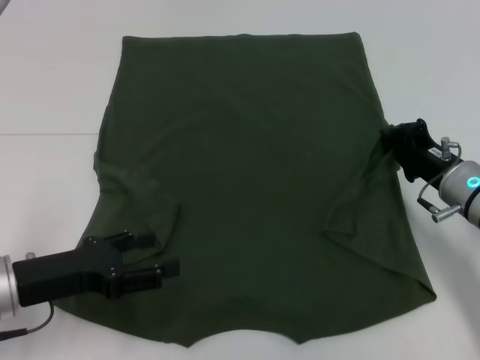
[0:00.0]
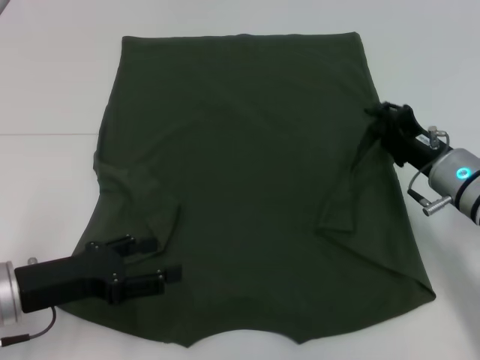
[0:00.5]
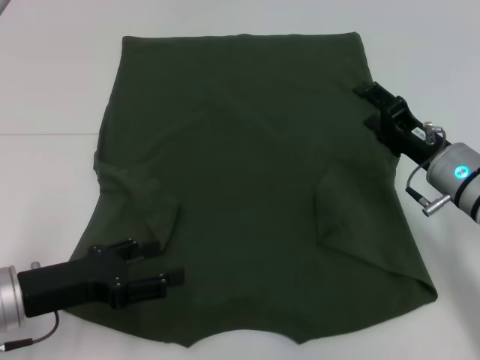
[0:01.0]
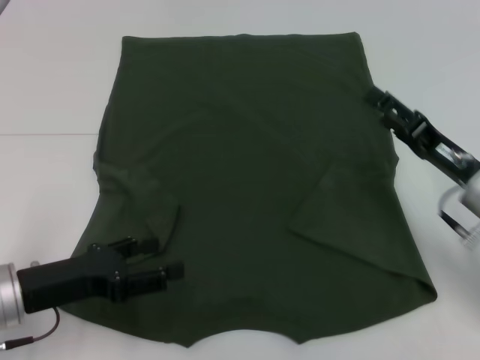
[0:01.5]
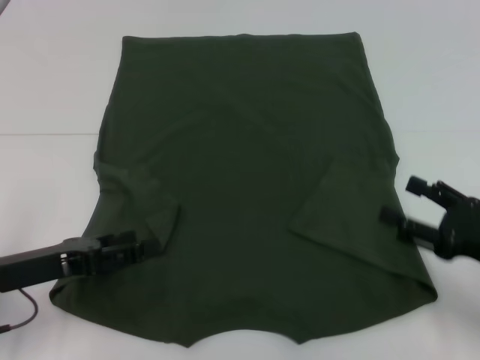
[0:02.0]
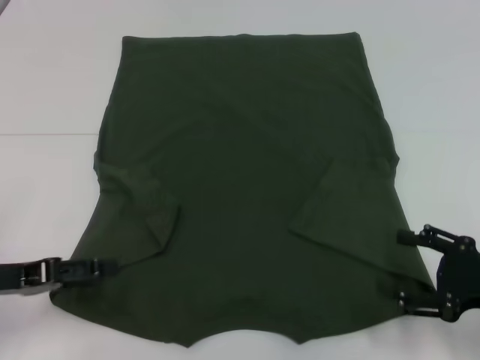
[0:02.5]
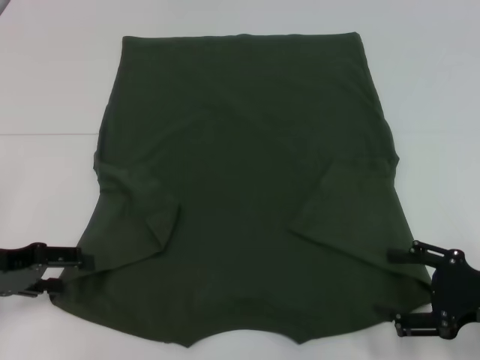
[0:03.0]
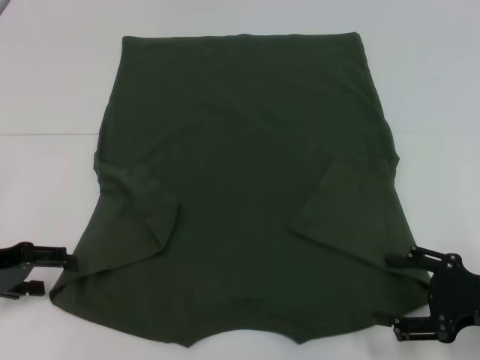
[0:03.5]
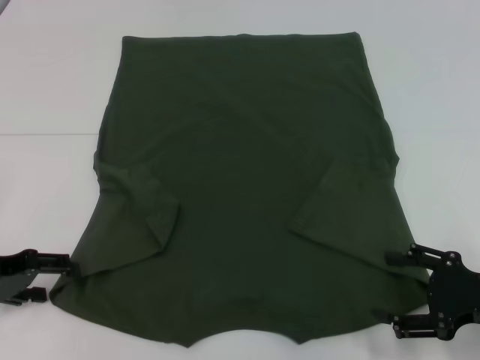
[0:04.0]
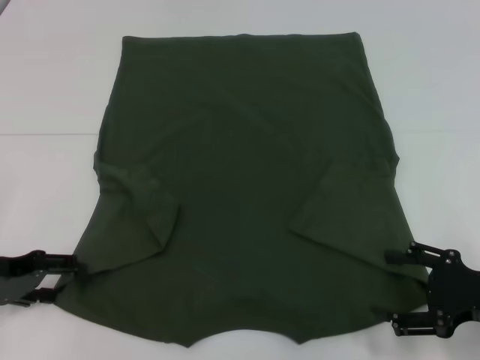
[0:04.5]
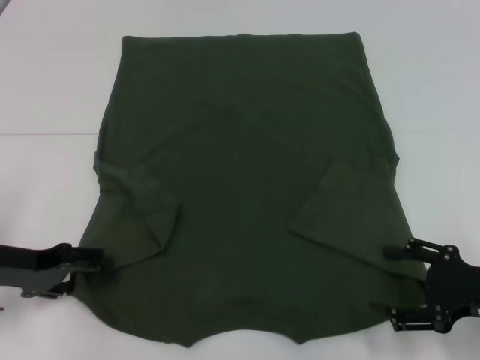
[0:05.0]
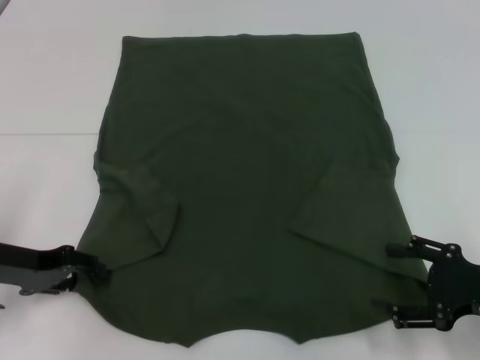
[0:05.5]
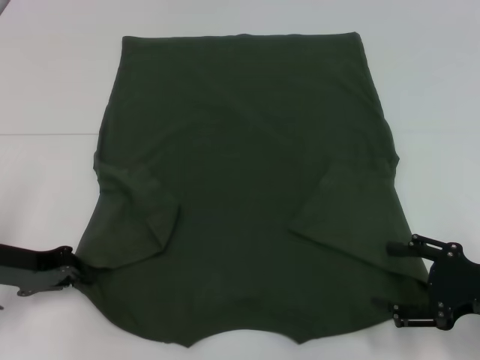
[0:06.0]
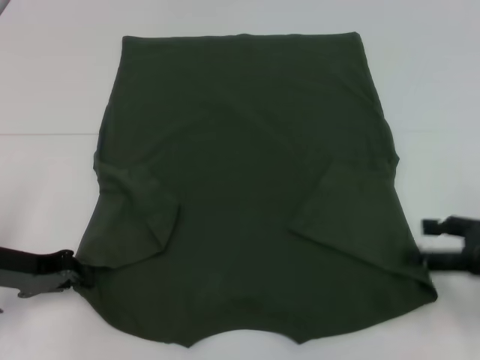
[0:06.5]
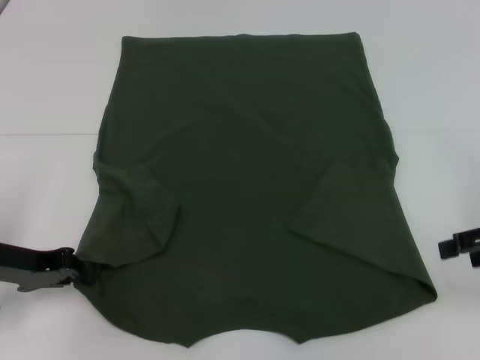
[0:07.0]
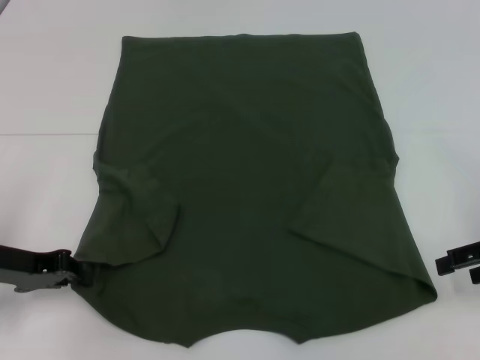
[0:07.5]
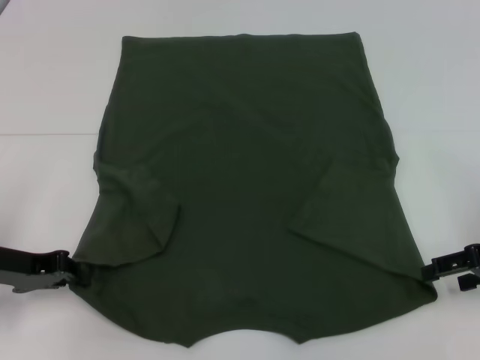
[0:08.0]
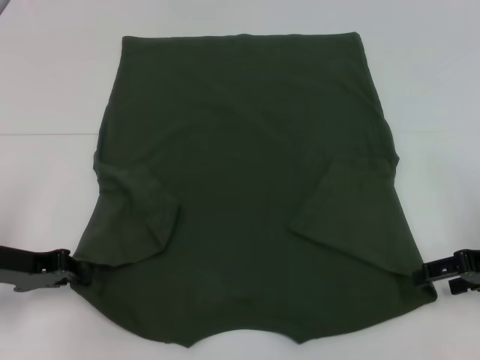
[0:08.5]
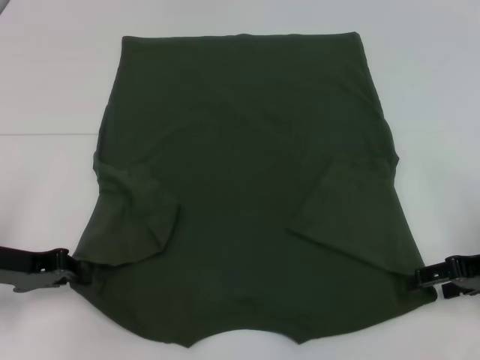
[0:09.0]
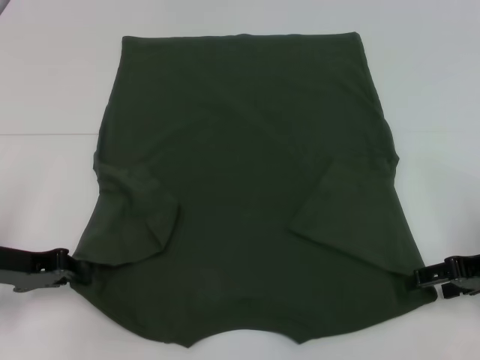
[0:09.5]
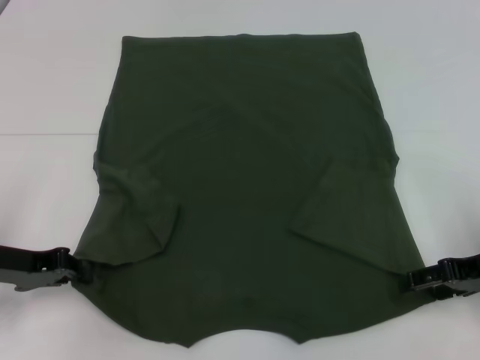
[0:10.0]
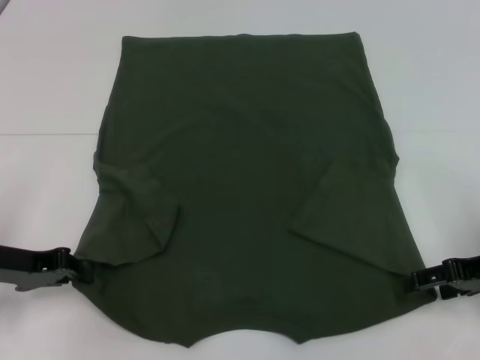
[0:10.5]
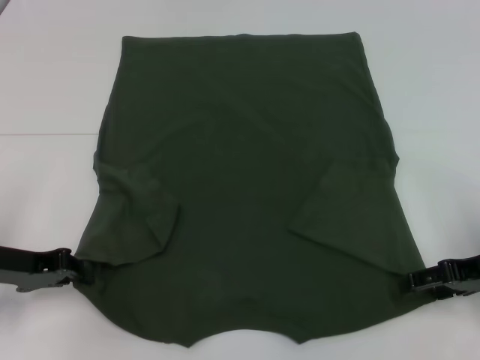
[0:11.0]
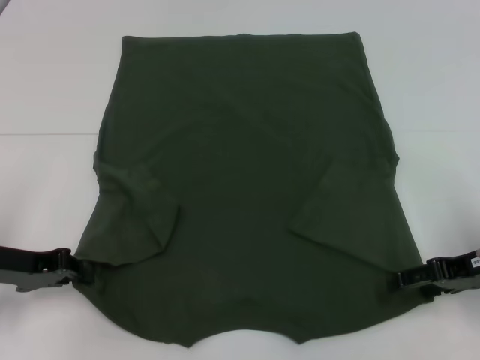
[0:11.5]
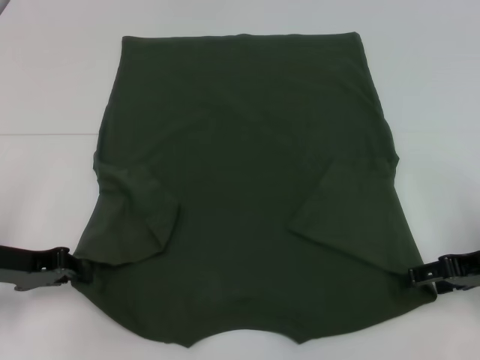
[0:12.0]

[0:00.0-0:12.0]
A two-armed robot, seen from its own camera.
Step, 1.5 to 6.0 s: Grab the bottom left corner with your left hand.
0.0 to 2.0 s: The right gripper is displaced backward and to the right by approximately 15 cm, and opens.
2.0 to 4.0 s: The left gripper heads to the left, covering approximately 5 cm.
4.0 to 6.0 s: The left gripper closes.
6.0 to 8.0 s: The right gripper heads forward, covering roughly 5 cm.
8.0 to 10.0 s: The grippers move only a little.
10.0 to 12.0 s: Neither gripper changes place.

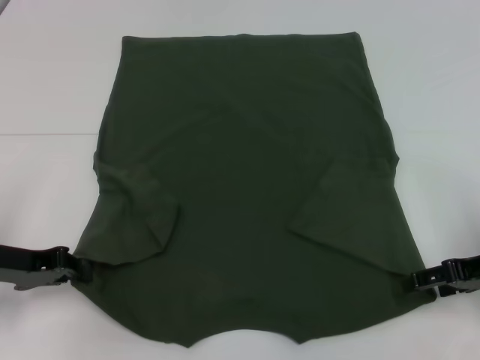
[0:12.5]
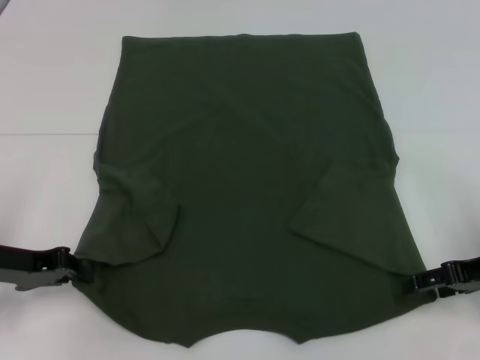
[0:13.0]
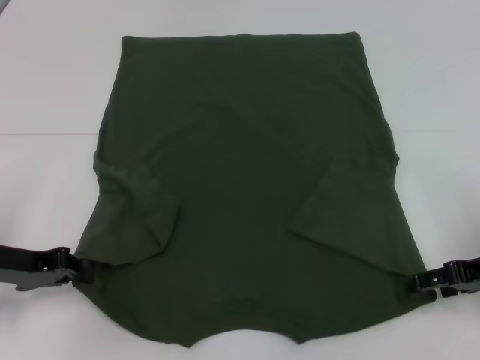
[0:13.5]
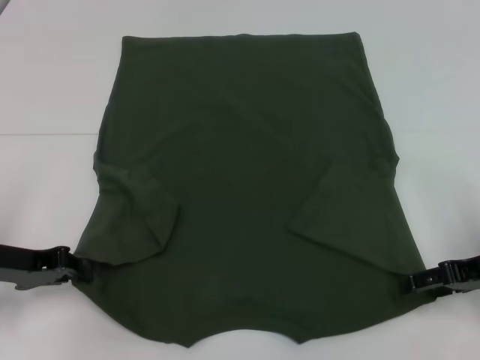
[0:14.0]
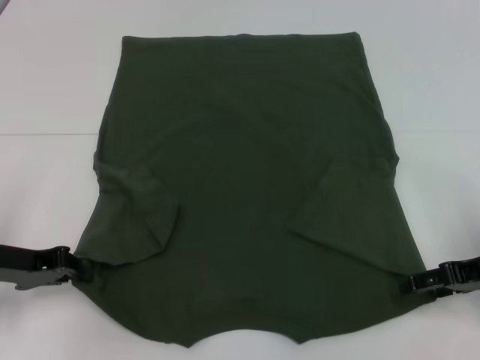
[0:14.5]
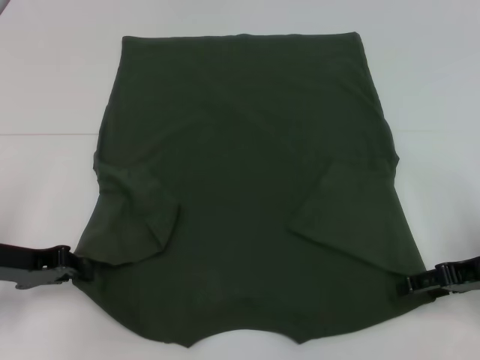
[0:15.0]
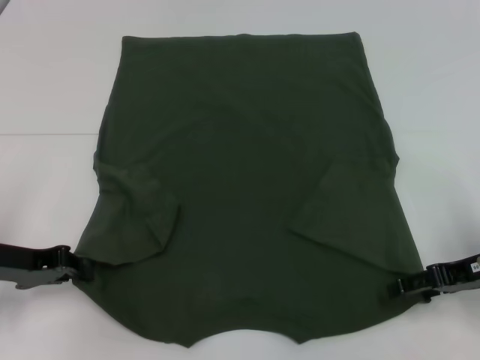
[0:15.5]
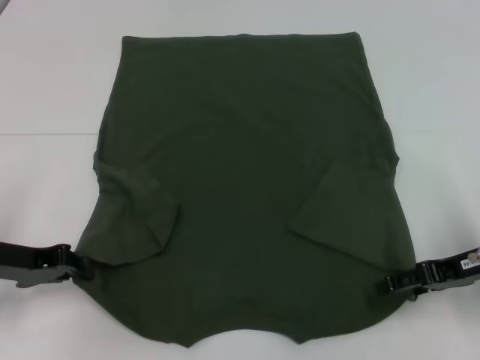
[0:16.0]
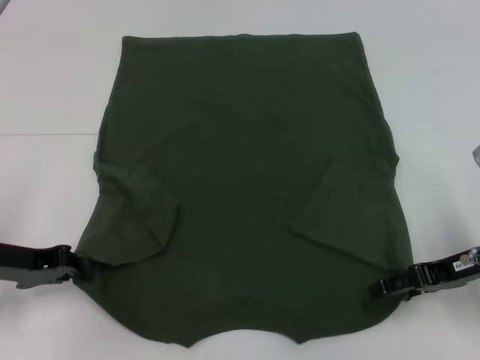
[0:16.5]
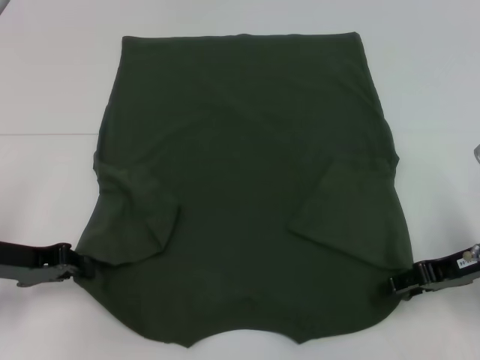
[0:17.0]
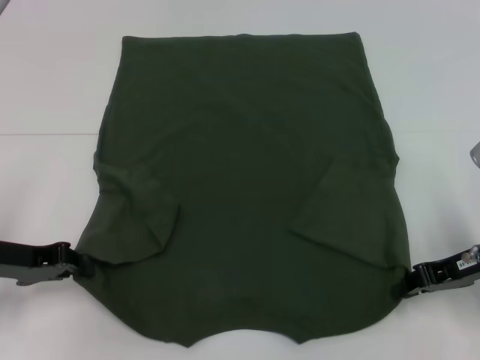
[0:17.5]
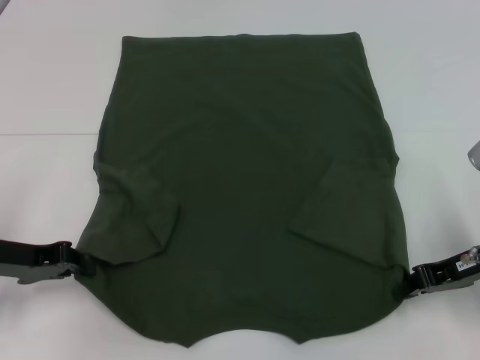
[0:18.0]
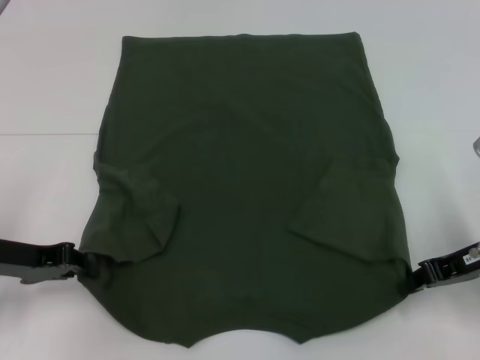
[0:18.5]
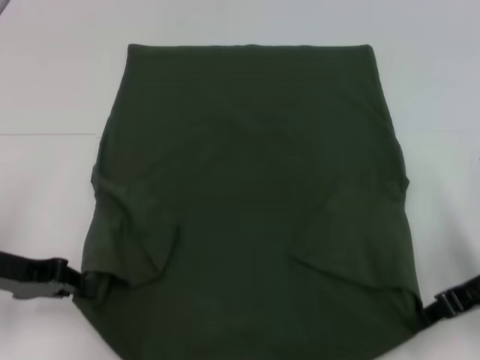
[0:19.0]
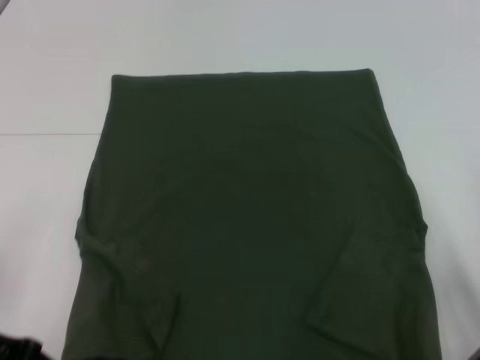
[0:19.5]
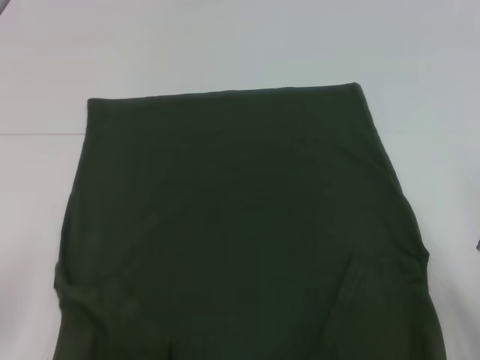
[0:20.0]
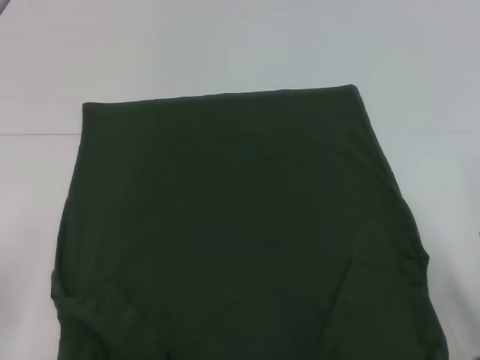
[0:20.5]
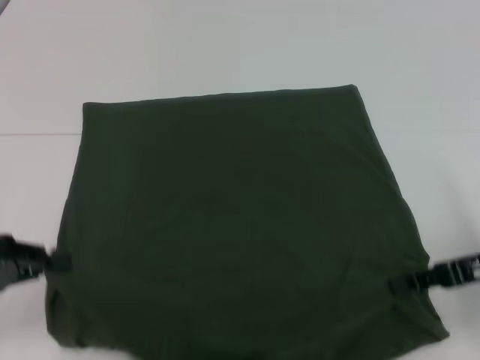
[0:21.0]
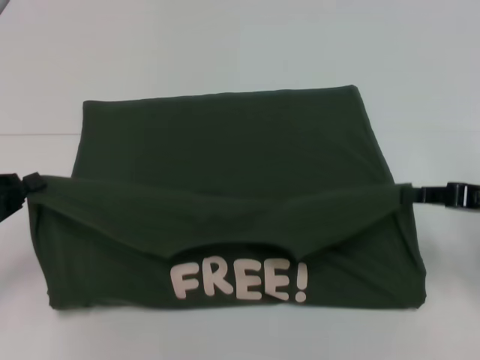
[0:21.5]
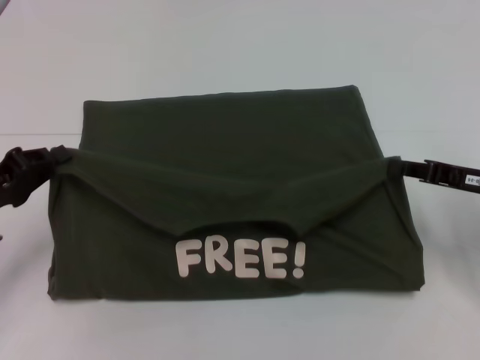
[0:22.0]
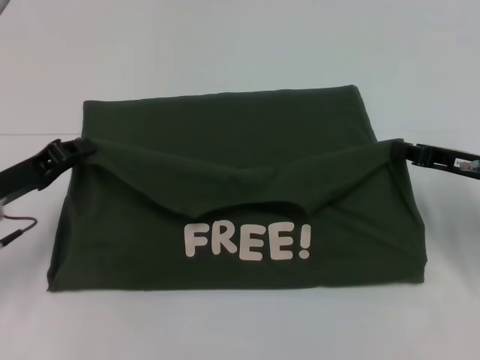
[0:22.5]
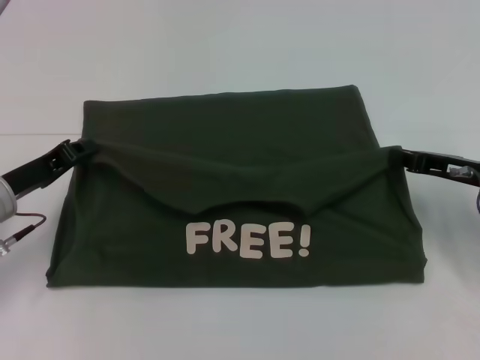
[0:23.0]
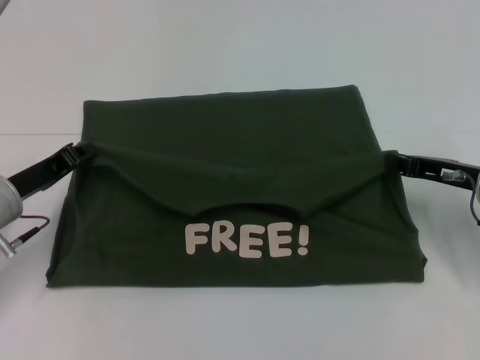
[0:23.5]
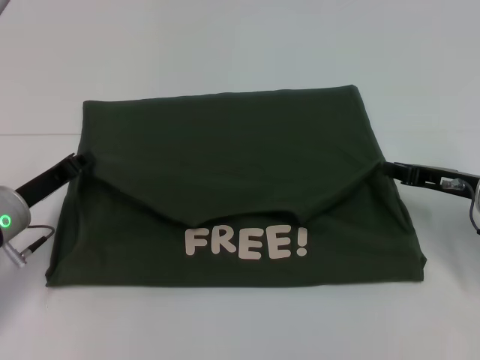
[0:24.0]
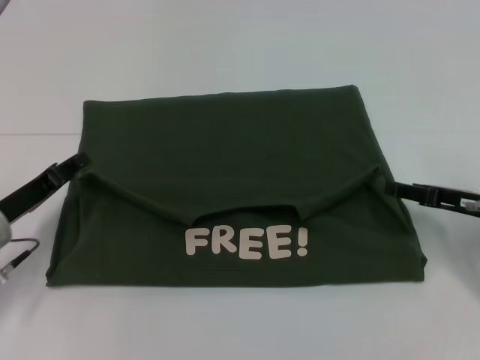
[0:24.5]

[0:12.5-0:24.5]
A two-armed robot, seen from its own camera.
Step, 12.5 to 17.5 s: Grab the bottom right corner with your right hand.
Step, 18.0 to 24.0 s: Fold the clothes with your left hand.
Step, 18.0 to 24.0 s: Fold the clothes with your right hand.
12.5 to 14.5 s: Both grippers stay put.
14.5 to 16.5 s: The grippers stay close to where they were, moving slightly.
16.5 to 18.5 s: The right gripper closes its fingers.
18.5 to 20.5 s: Both grippers move backward, roughly 5 cm.
20.5 to 22.5 s: The two grippers go approximately 10 cm forward.
22.5 to 24.5 s: The right gripper opens up.

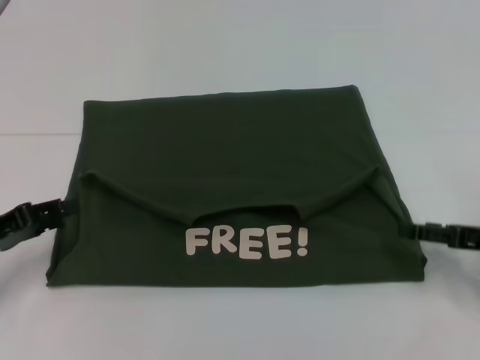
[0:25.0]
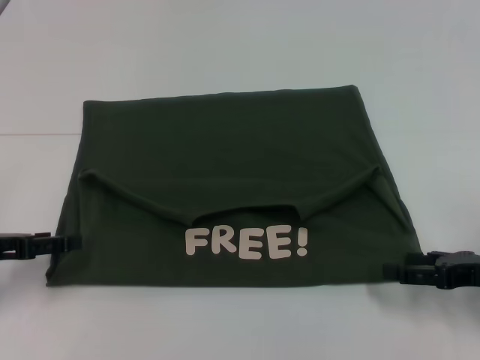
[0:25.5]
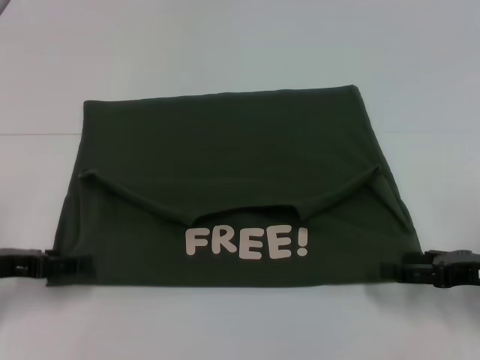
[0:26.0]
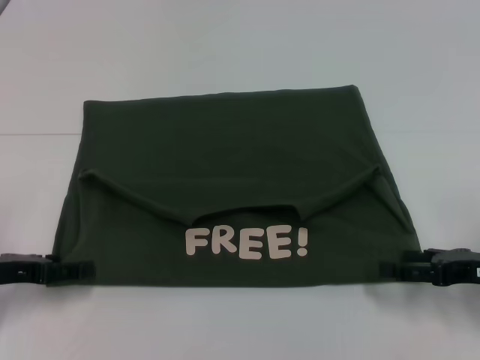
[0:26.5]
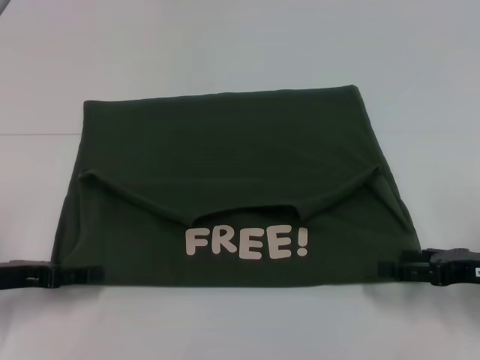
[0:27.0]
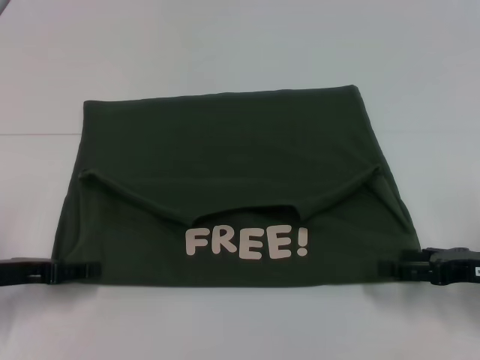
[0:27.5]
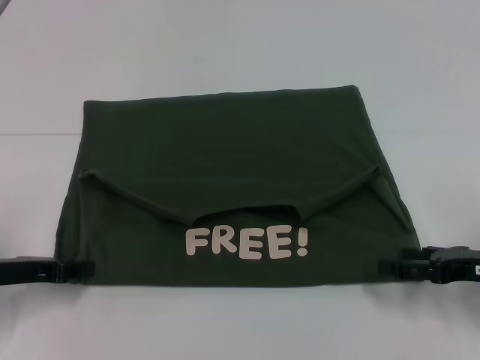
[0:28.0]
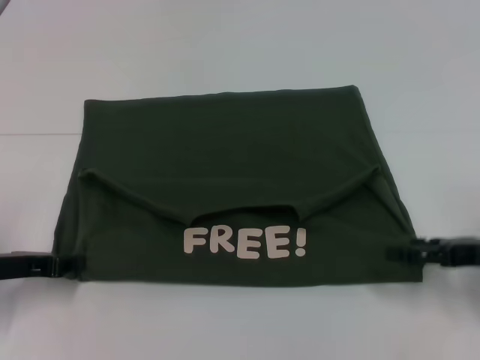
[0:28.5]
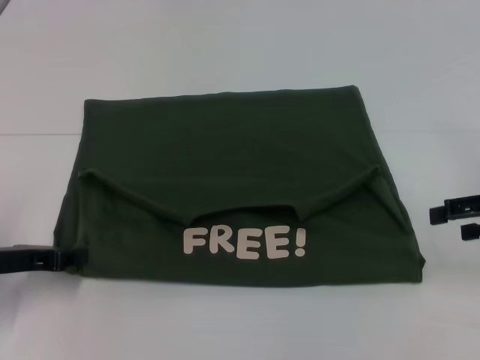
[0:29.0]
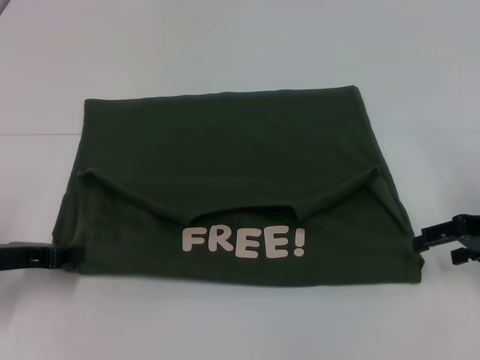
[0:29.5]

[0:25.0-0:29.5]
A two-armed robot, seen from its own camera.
25.0 to 27.0 s: The left gripper opens its fingers.
27.0 to 29.5 s: The right gripper travels upward and forward by roughly 10 cm, while the left gripper closes up.
